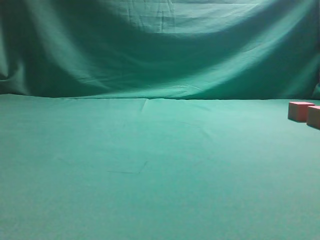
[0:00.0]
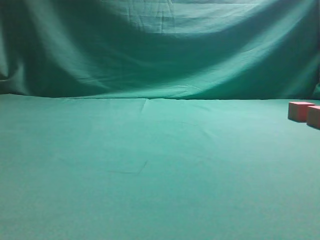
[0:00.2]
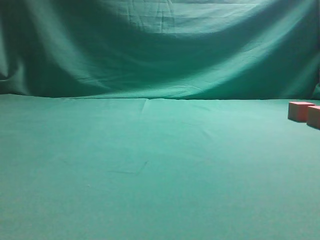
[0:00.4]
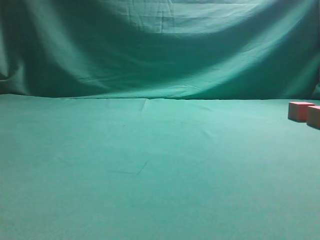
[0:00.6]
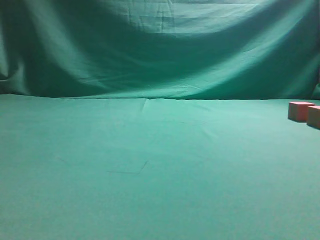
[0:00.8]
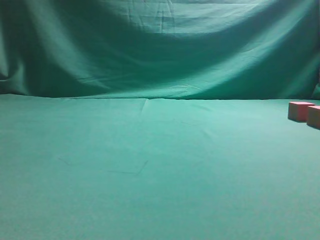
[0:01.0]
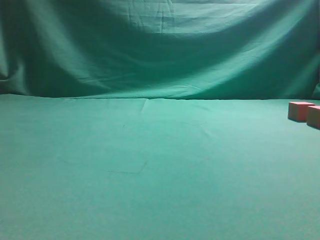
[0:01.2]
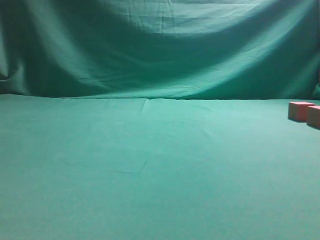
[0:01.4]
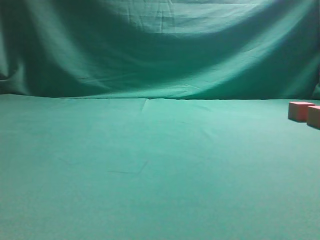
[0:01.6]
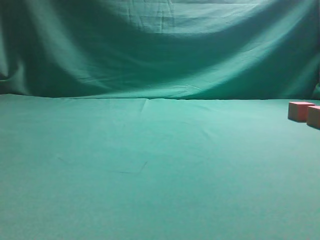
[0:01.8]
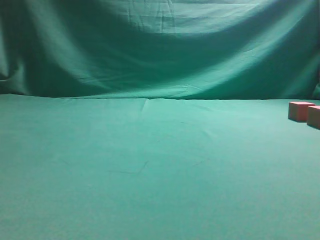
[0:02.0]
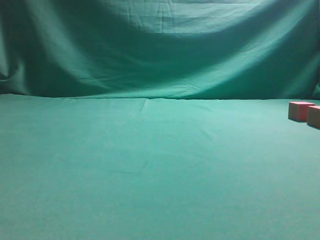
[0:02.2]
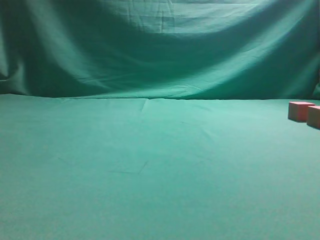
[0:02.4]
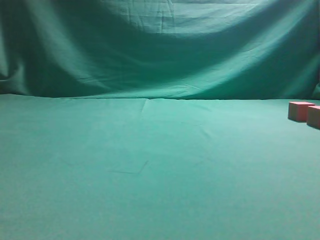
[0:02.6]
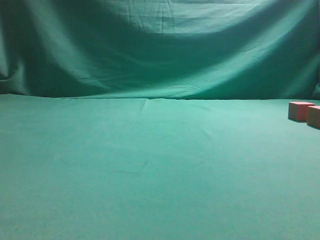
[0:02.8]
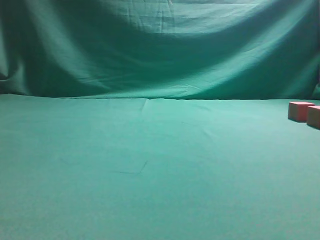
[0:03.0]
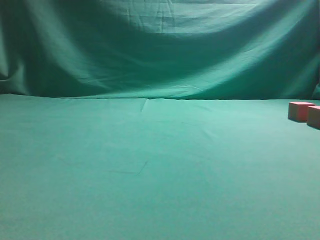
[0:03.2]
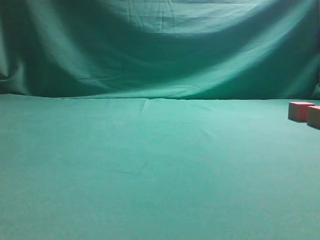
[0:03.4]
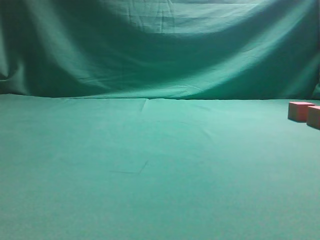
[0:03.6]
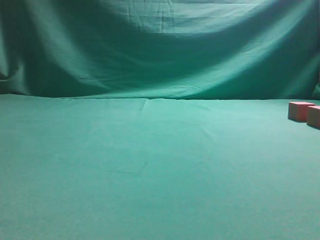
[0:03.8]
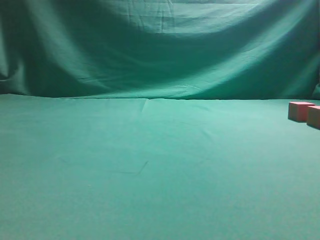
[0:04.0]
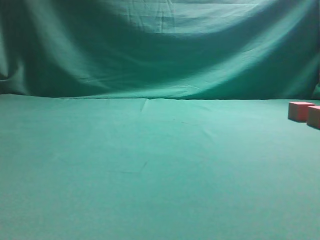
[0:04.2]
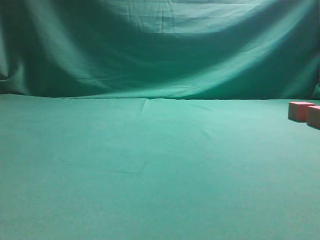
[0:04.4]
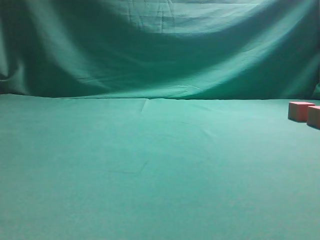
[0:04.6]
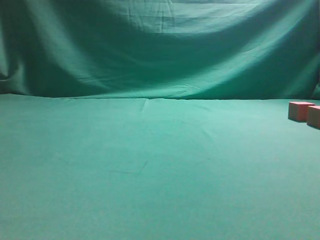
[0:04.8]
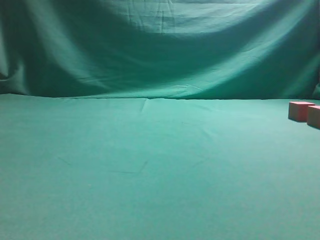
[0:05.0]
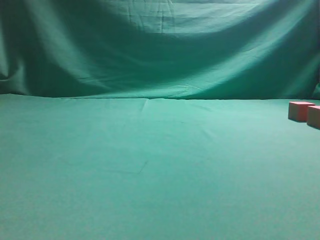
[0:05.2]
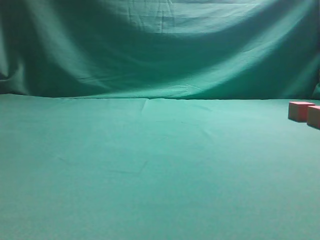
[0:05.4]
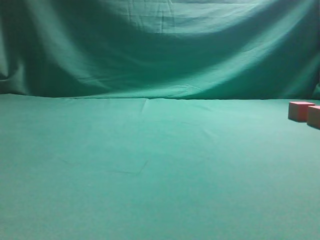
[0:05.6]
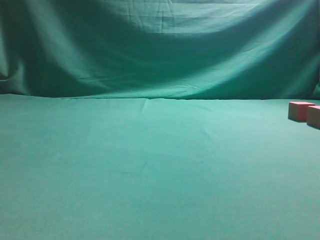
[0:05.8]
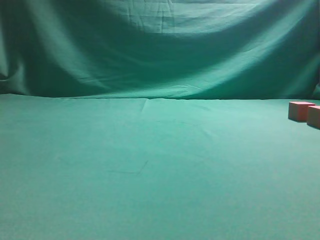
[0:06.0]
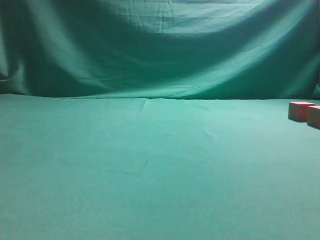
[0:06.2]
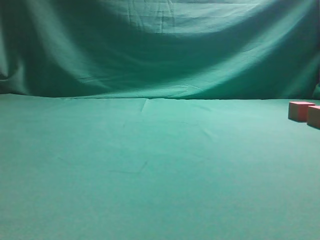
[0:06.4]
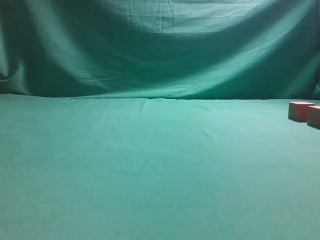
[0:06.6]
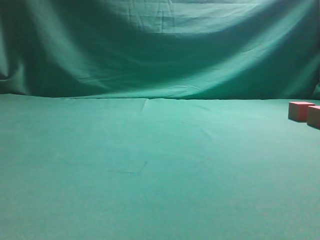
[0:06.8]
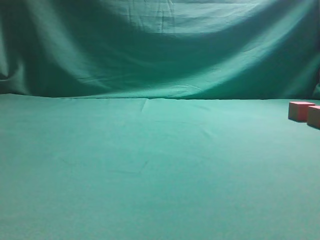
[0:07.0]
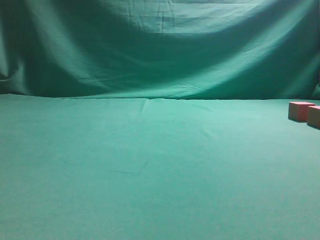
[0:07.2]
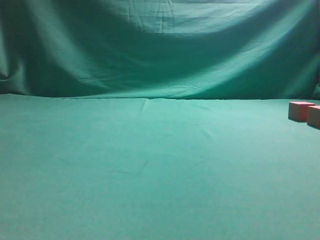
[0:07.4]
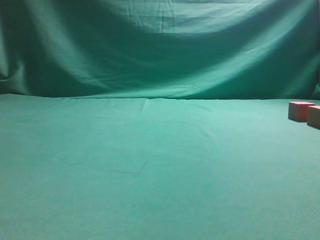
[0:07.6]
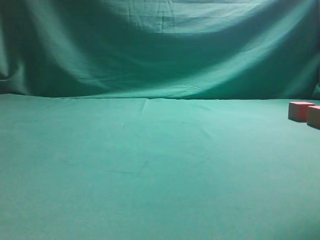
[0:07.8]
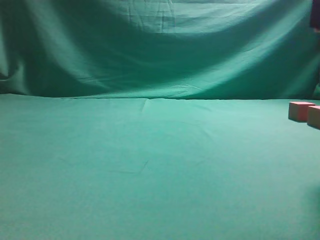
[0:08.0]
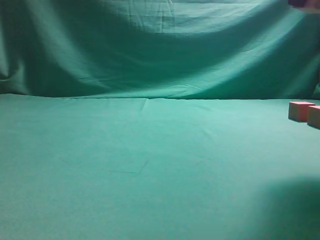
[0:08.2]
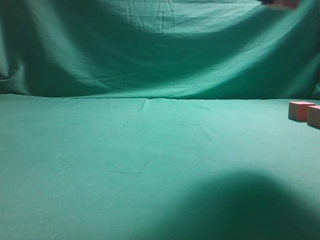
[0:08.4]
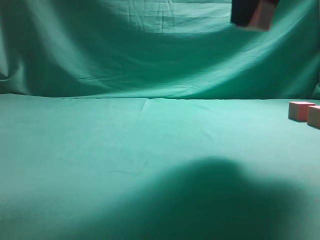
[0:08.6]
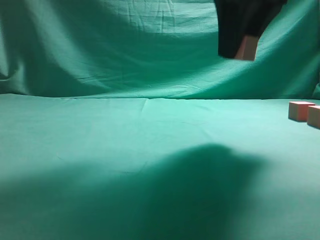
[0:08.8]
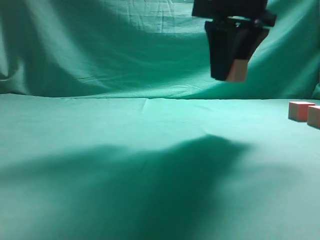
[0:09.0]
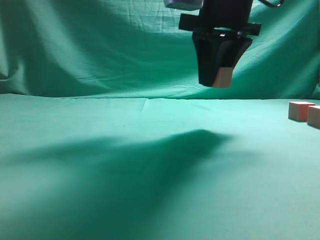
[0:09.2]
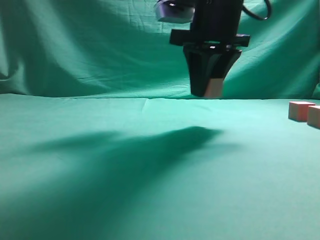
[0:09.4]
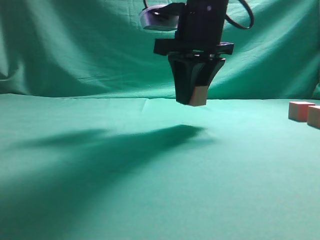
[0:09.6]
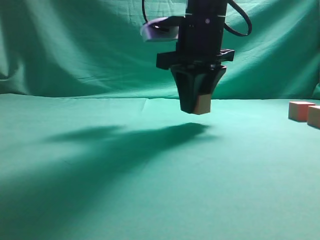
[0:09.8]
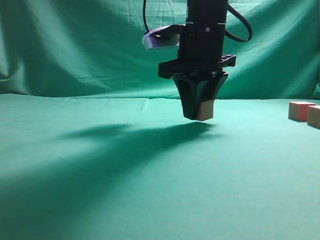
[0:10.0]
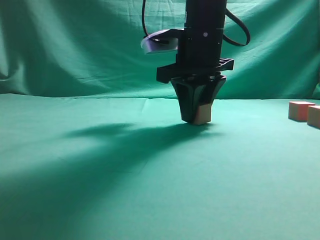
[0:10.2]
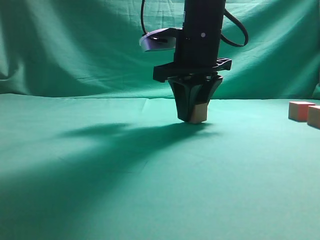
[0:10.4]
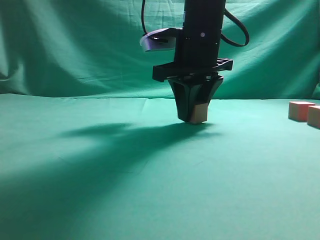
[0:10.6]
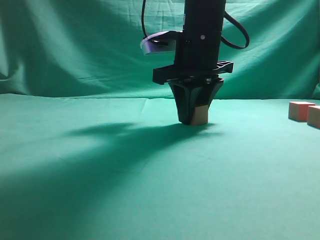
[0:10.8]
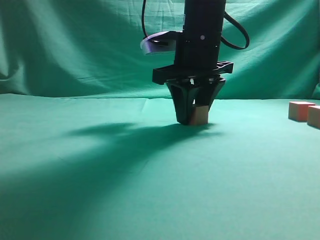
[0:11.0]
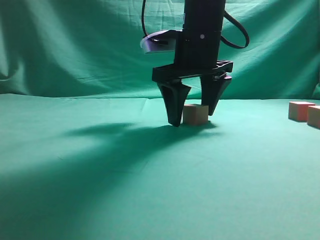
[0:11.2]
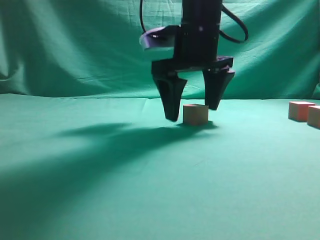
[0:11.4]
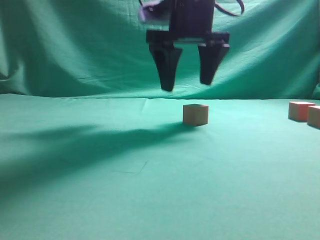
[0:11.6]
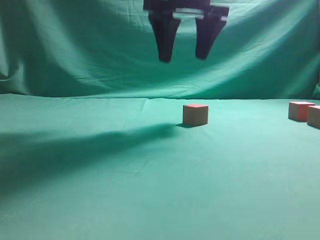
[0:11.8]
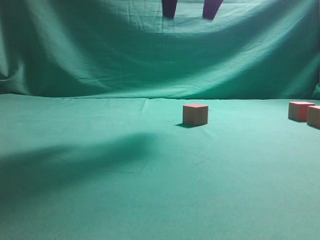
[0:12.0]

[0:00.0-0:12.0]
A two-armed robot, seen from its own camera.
Task of the whole recording: pick up the multiple cubes in two columns one by one and place them in another position on the table.
Step, 0:08.0 to 0:11.8: Place the block at the correct position to assemble the letter S.
0:07.6 to 0:09.0: The right gripper travels to the left and forward by approximately 15 cm.
0:09.0 to 0:10.4: The right gripper shifts about 10 cm downward, forward and to the left.
0:10.4 to 0:12.0: The right gripper shifts roughly 15 cm upward, and opens.

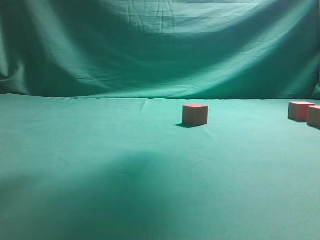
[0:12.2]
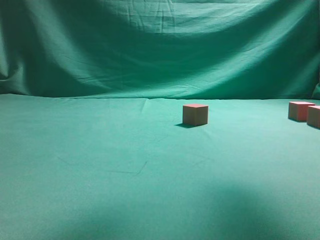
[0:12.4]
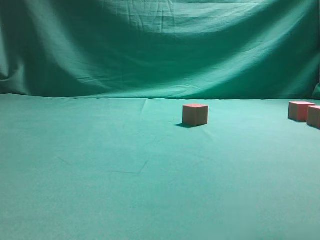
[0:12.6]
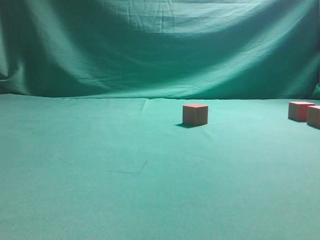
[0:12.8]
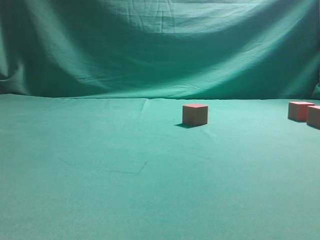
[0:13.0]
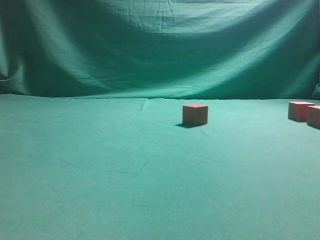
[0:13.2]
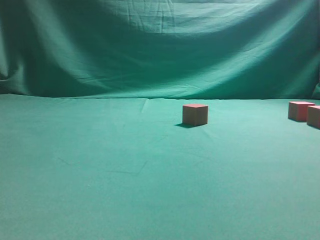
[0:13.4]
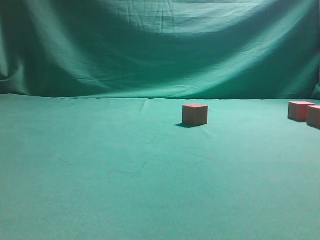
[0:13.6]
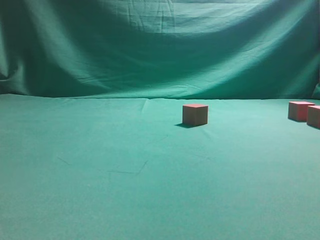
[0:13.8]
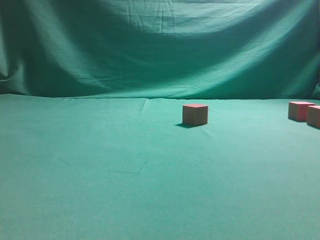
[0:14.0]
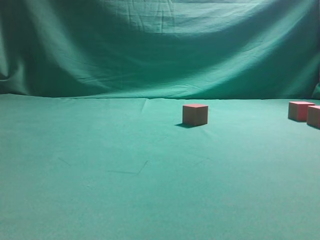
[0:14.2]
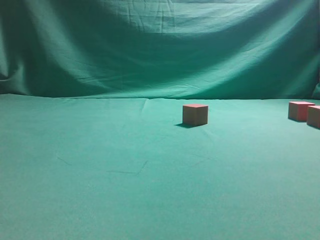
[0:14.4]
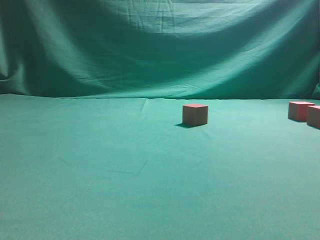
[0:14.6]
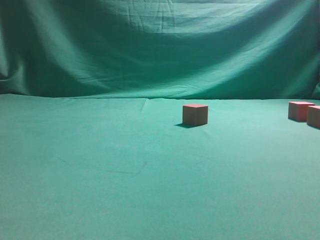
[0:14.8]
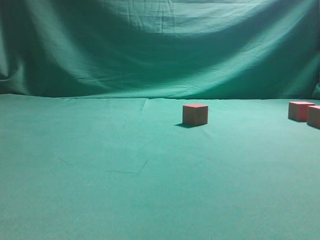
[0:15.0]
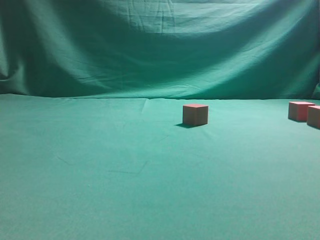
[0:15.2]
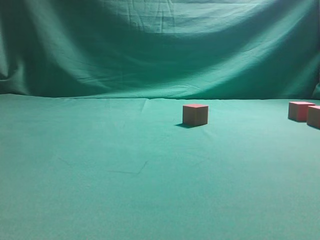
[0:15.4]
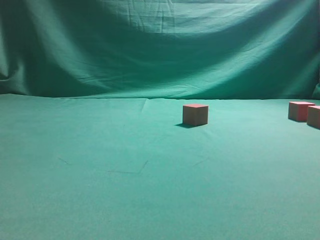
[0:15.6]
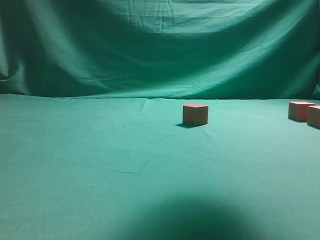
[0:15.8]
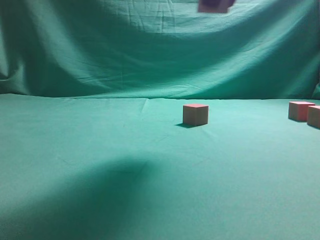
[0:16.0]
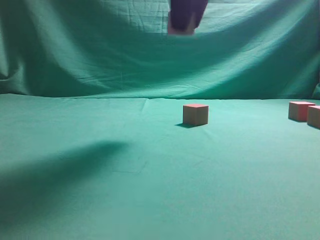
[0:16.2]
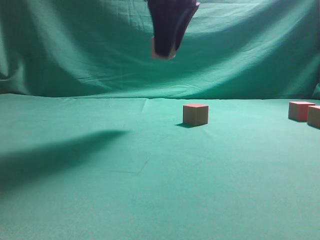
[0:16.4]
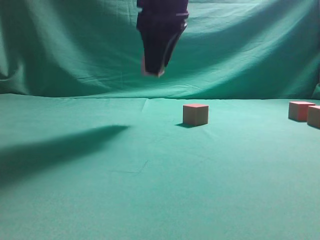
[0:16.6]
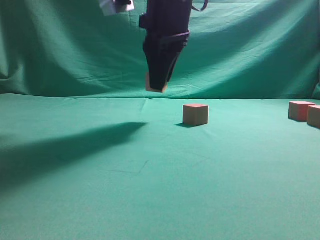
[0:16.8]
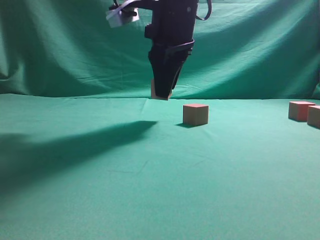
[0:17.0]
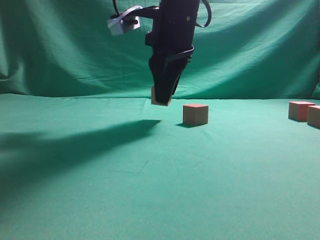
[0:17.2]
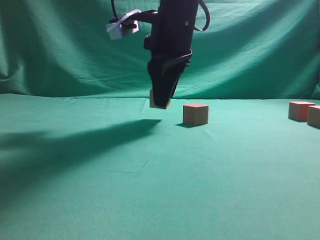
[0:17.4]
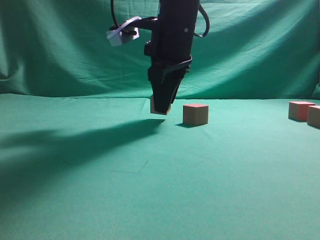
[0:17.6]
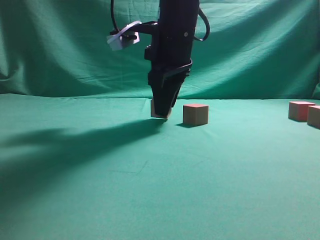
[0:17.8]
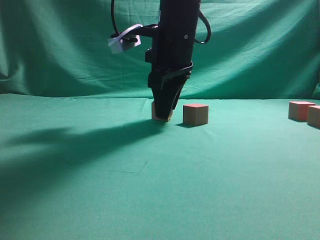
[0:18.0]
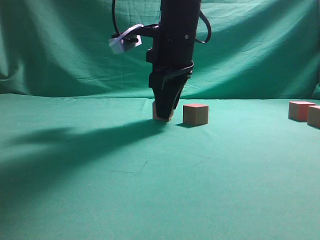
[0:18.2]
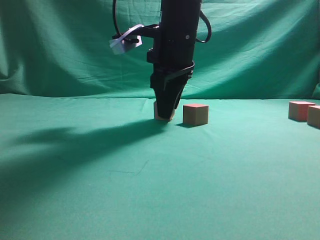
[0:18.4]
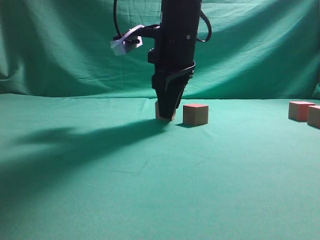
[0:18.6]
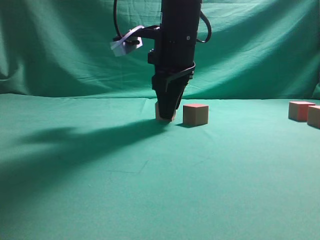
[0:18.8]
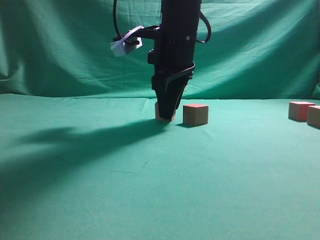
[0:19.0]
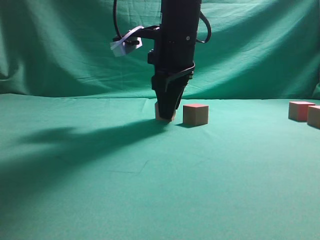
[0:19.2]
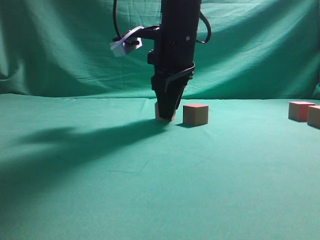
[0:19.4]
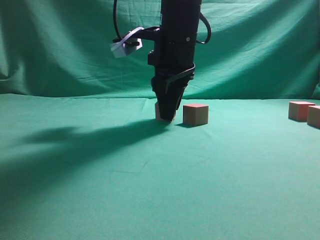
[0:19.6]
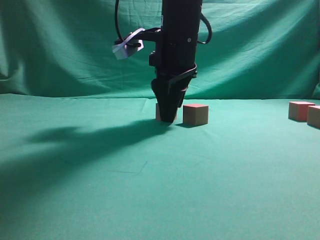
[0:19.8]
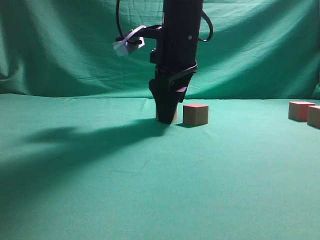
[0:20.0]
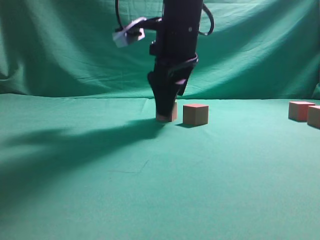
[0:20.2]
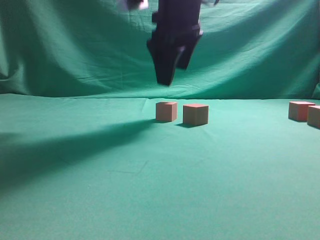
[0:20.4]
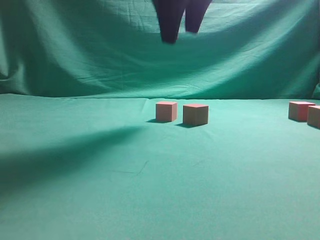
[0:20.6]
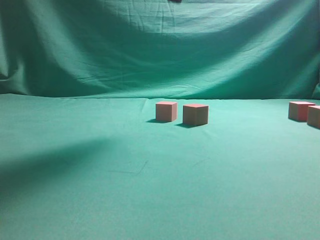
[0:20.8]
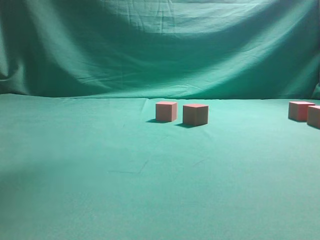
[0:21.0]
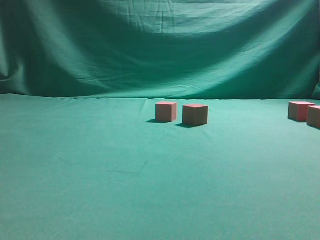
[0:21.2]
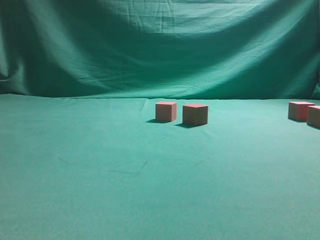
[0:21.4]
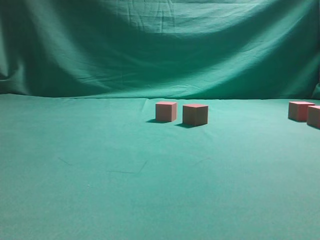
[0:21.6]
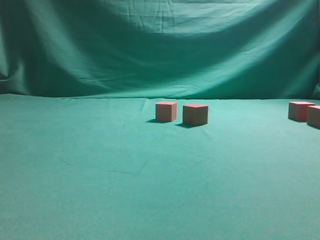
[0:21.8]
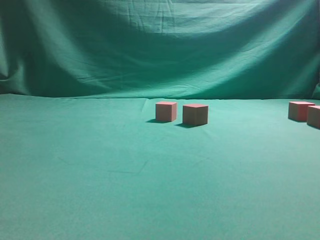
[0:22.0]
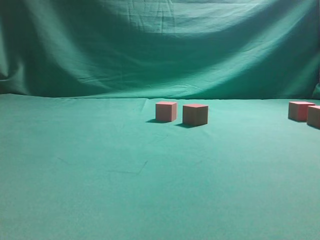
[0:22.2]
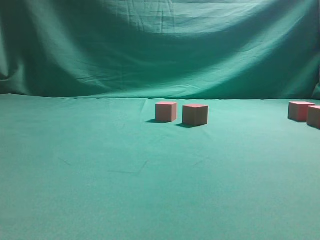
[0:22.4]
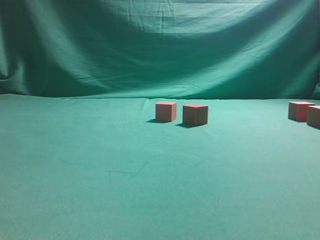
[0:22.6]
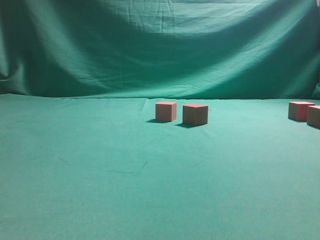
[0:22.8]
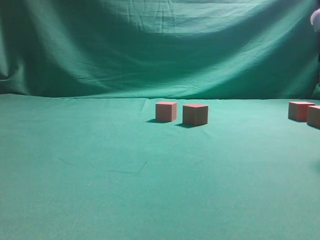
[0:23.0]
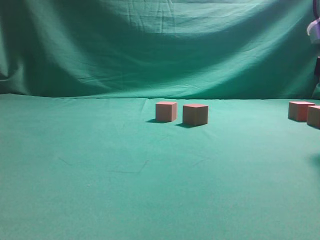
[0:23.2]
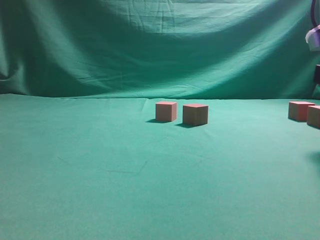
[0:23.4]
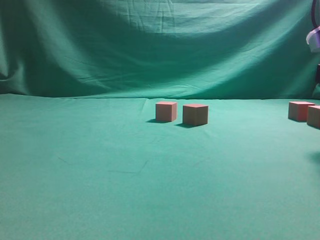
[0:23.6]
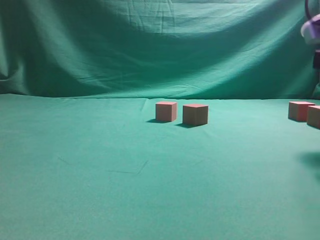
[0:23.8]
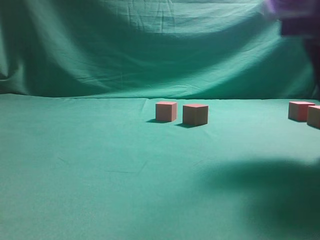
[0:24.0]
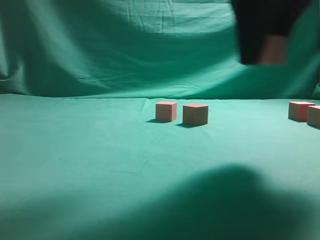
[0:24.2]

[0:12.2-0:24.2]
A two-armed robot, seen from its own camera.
Task of the whole recording: pick up the multiple cubes in two columns one by one and place them in another position on the table.
Step, 0:12.2 to 0:15.4: Pick up the block on the table.
Step, 0:15.6 to 0:20.4: Place the block at the correct position to assemble the letter S.
Step, 0:20.6 to 0:24.0: Pick up the block on the table.
0:12.2 to 0:13.8: The right gripper is displaced to the right, backward and downward by some 30 cm.
0:15.2 to 0:16.6: The right gripper is displaced to the left and forward by some 30 cm.
0:16.6 to 0:18.2: The right gripper goes some 5 cm downward.
0:18.2 to 0:19.8: Both grippers stay put.
0:19.8 to 0:21.2: The right gripper heads upward and backward, covering about 30 cm.
0:22.6 to 0:24.2: The right gripper is displaced to the left by roughly 15 cm, and closes its fingers.
